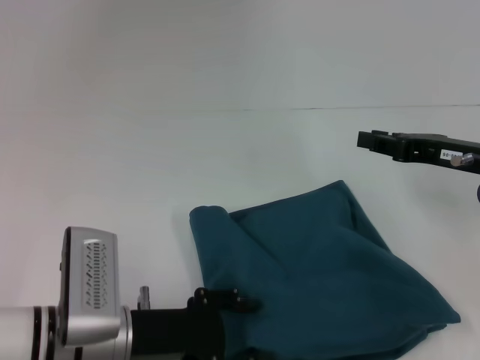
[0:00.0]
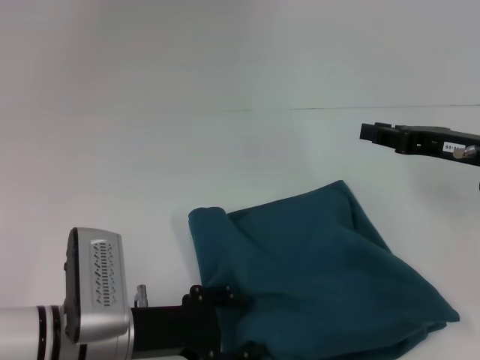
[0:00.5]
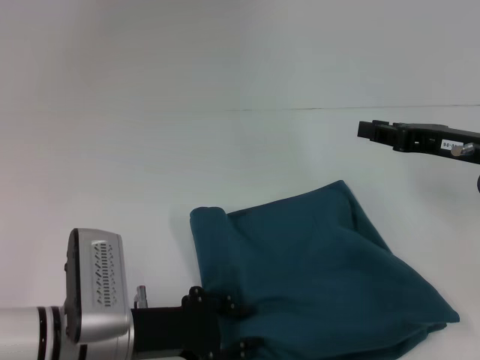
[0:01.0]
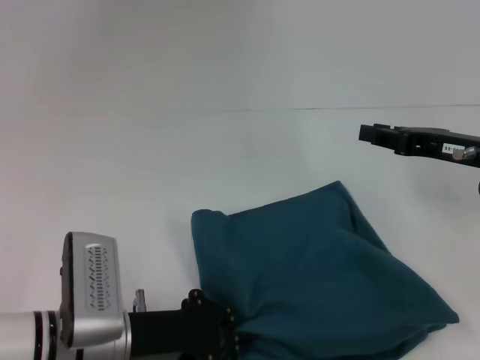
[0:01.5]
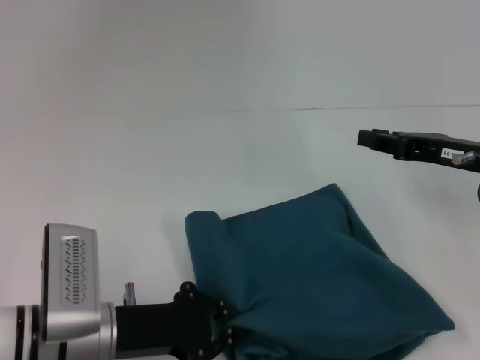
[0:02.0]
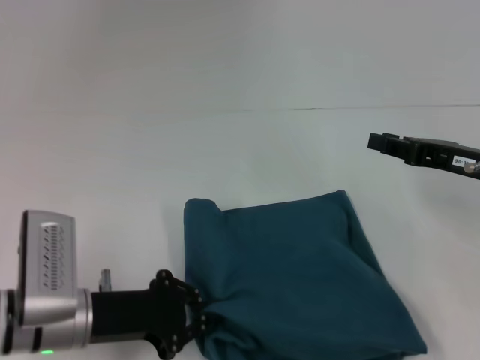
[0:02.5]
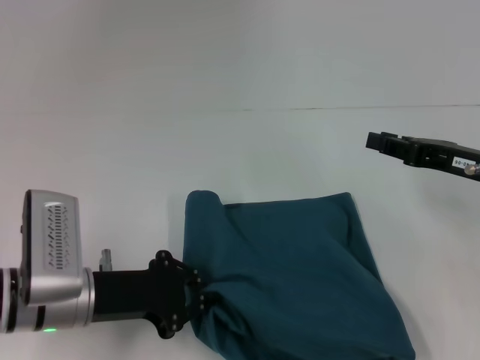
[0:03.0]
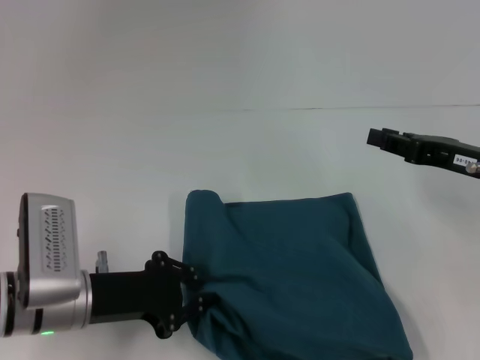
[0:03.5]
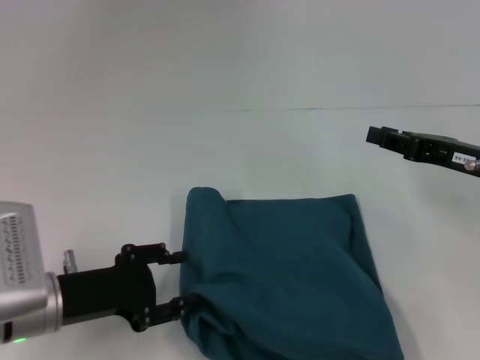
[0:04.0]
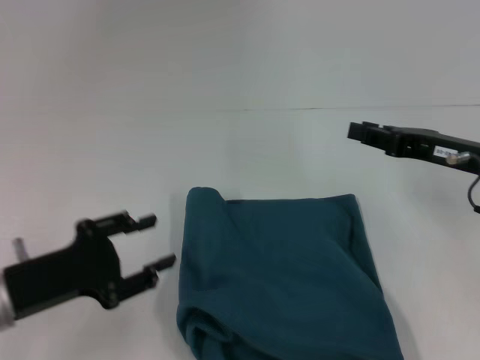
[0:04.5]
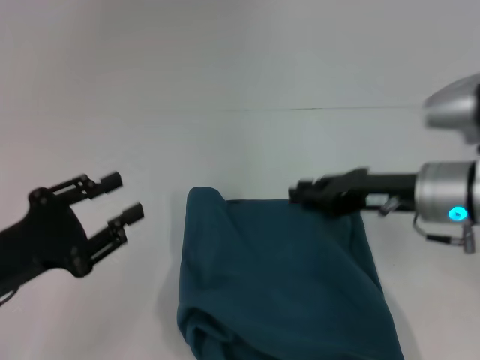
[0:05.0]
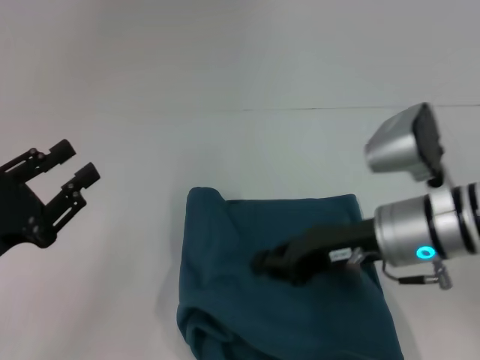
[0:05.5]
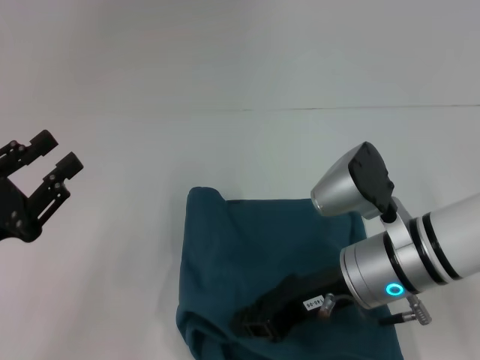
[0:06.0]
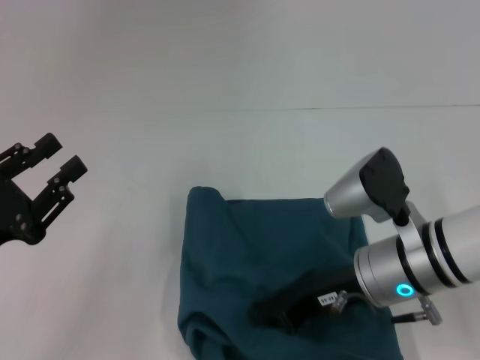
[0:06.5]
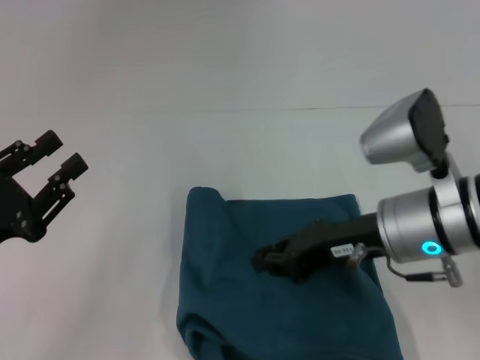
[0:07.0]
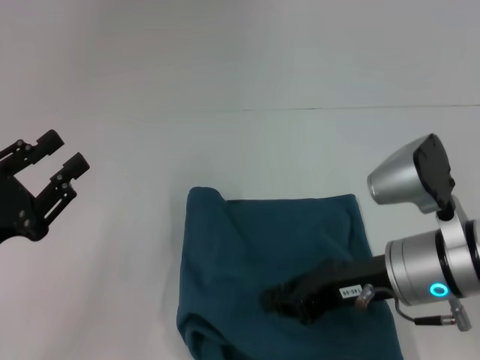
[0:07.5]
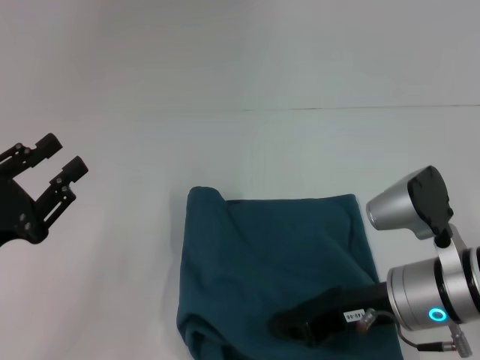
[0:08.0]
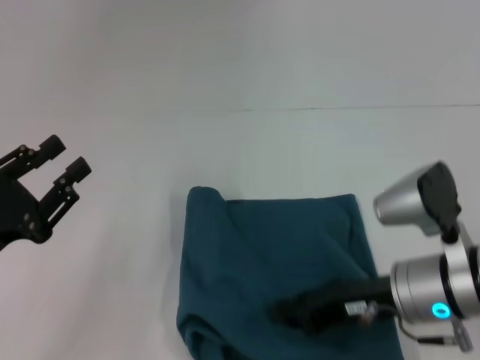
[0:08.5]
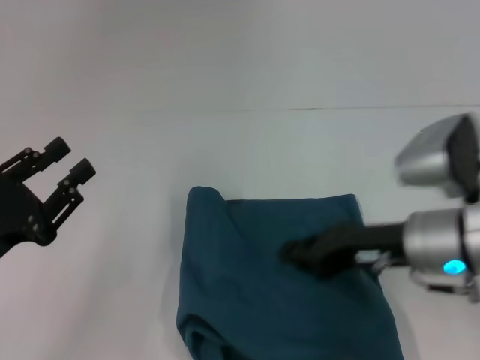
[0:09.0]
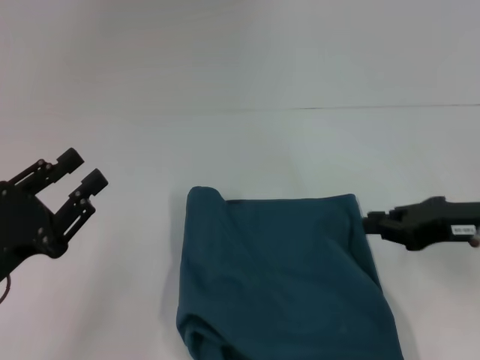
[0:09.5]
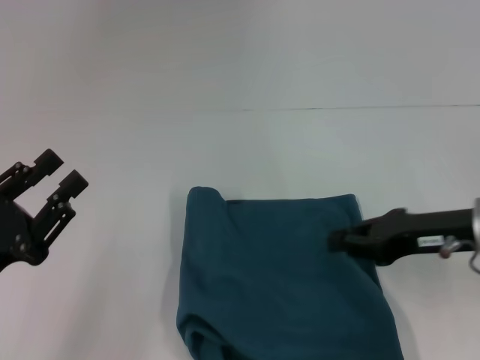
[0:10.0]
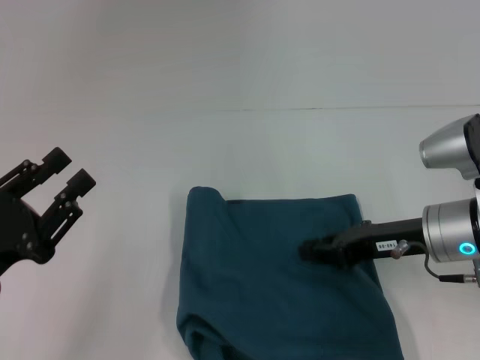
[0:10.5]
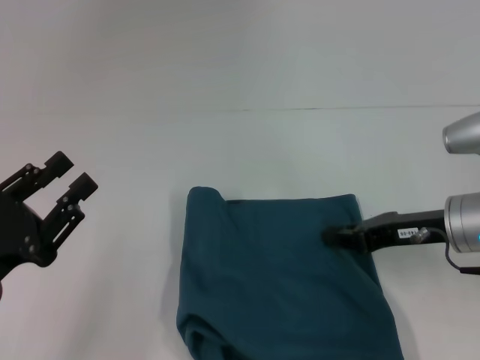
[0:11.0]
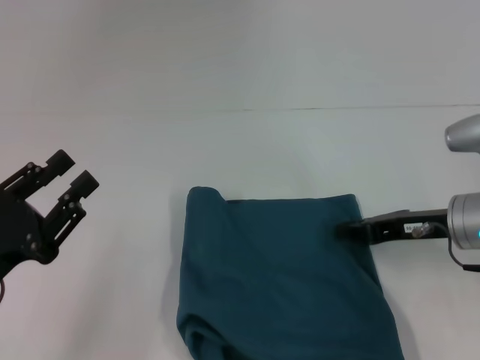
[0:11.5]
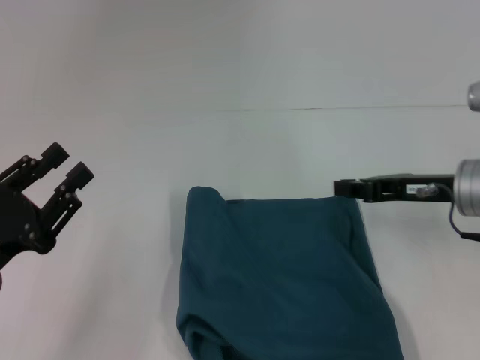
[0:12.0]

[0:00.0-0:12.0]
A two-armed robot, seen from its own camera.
0:00.0 to 0:02.0: The left gripper closes up.
0:02.0 to 0:04.0: The left gripper ends up about 5 cm from where it was.
0:04.0 to 0:06.0: The left gripper moves to the left, some 5 cm. The right gripper is displaced to the left by approximately 15 cm.
0:06.0 to 0:08.0: There are only small adjustments of the grippers.
0:08.0 to 0:10.0: The right gripper shifts about 10 cm to the right.

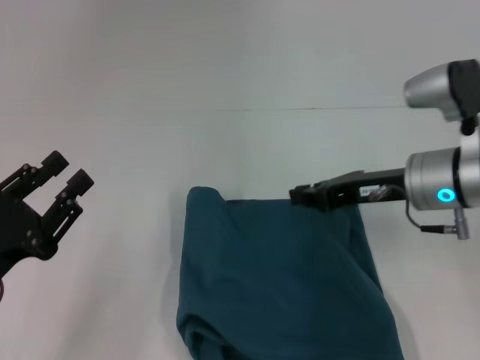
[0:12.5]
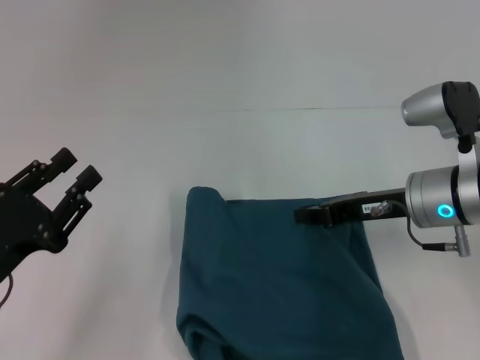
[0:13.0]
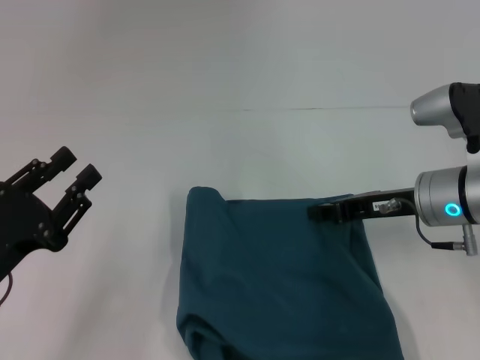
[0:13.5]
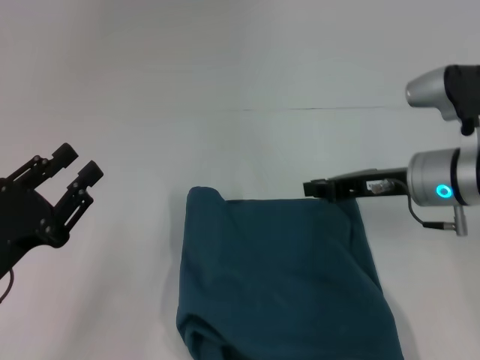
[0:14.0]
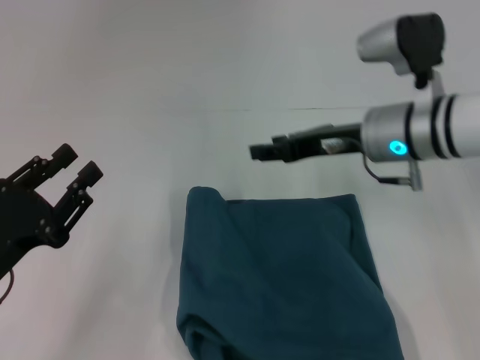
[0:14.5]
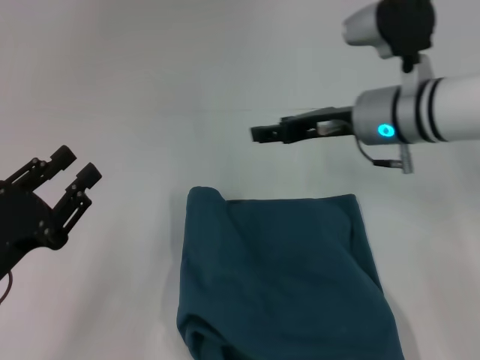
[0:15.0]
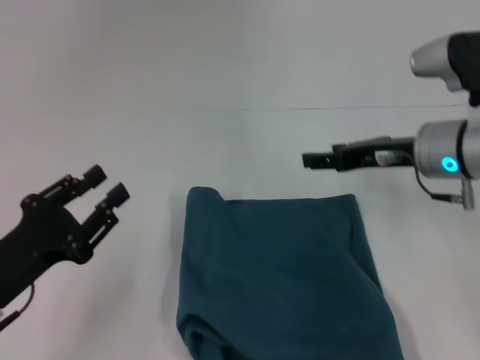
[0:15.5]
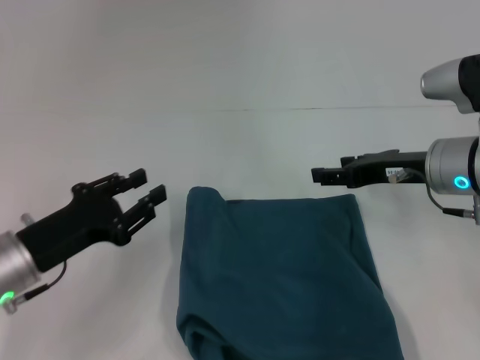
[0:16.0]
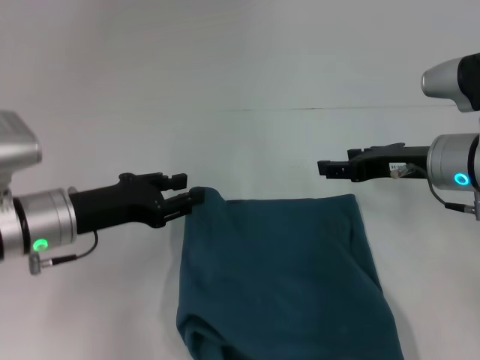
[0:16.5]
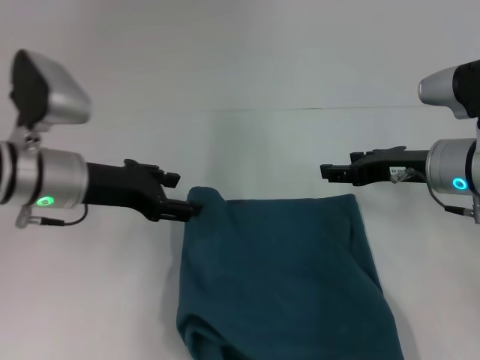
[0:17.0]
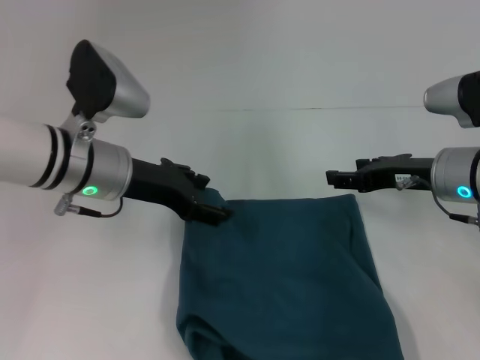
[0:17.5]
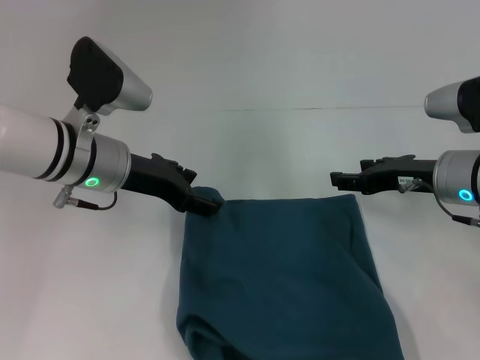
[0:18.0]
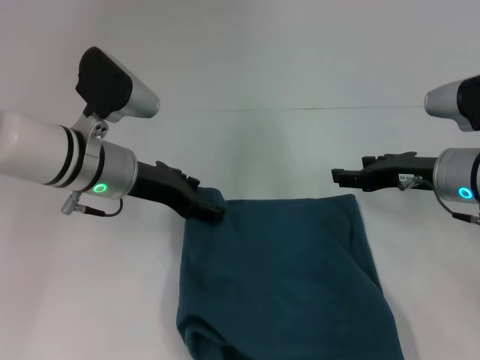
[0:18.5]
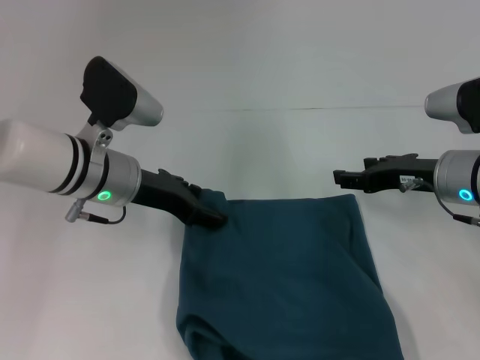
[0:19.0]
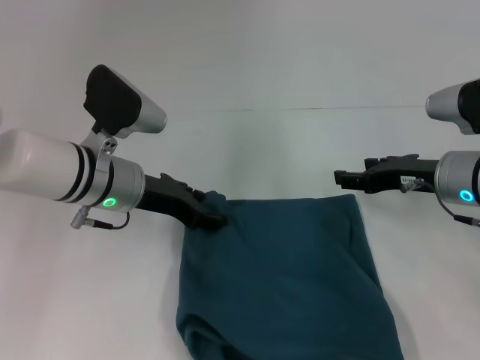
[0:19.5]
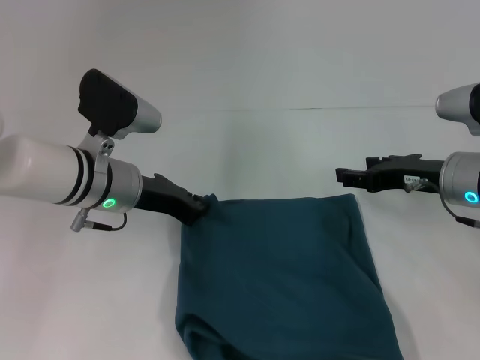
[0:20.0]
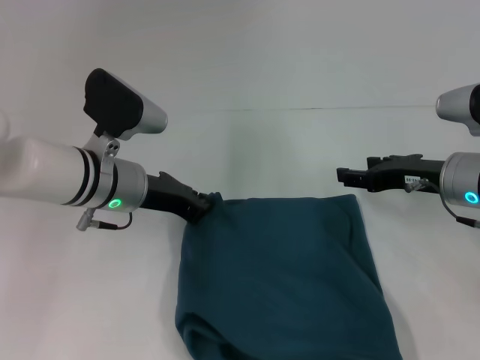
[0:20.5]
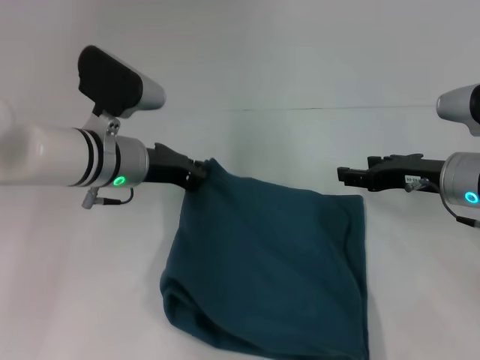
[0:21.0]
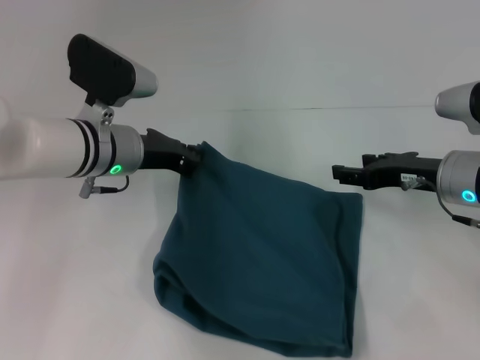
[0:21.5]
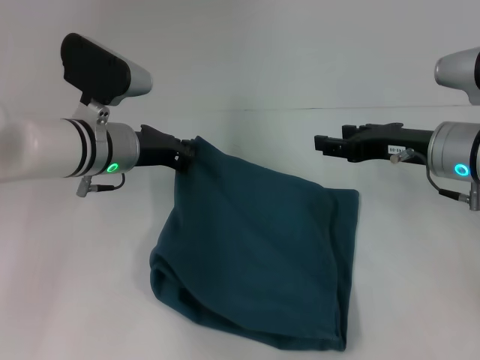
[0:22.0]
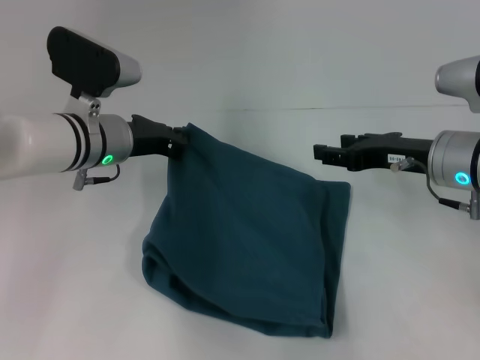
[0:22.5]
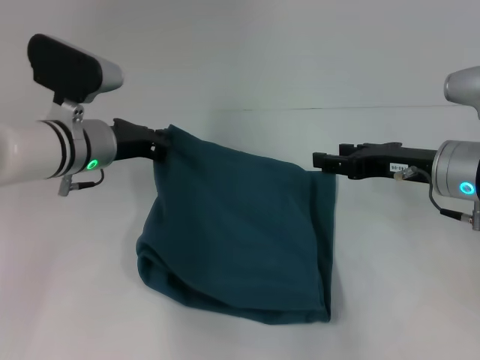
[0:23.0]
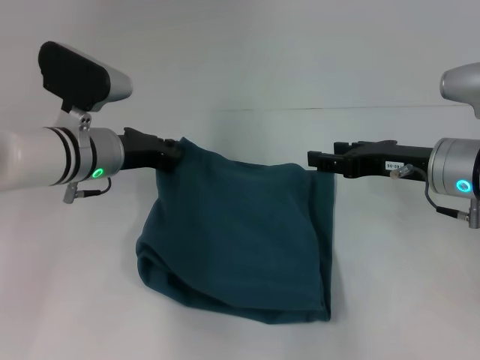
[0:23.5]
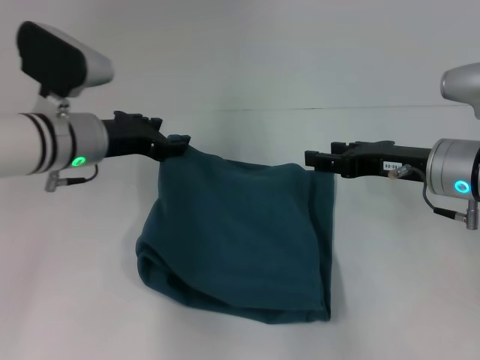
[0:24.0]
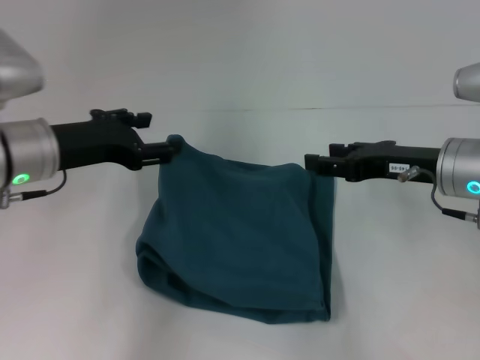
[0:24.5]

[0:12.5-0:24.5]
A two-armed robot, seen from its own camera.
0:12.5 to 0:14.5: The right gripper changes place by approximately 5 cm, and opens its fingers.
0:14.5 to 0:16.5: The right gripper goes about 5 cm to the right. Meanwhile the left gripper moves forward and to the right, about 10 cm.
0:16.5 to 0:18.5: The left gripper shifts about 10 cm forward and to the right, and opens its fingers.
0:18.5 to 0:20.5: The left gripper closes its fingers.
0:22.5 to 0:24.5: The left gripper is displaced backward and to the left by approximately 10 cm, and opens its fingers.

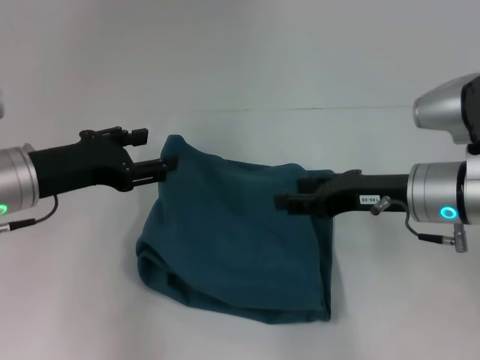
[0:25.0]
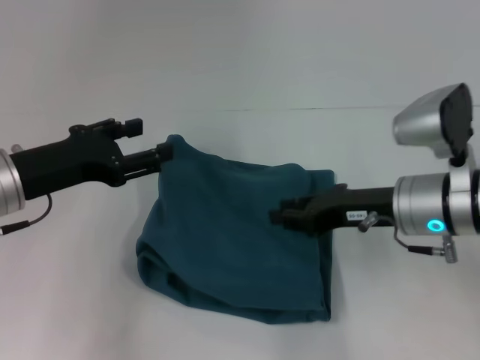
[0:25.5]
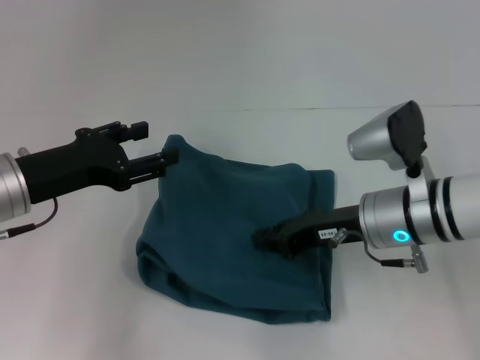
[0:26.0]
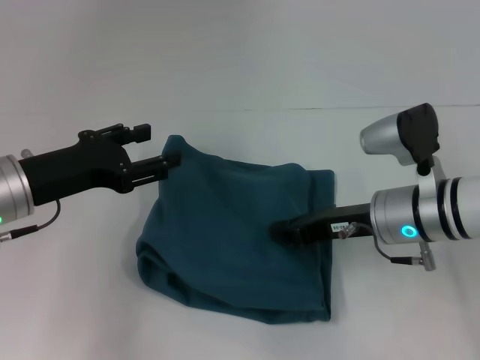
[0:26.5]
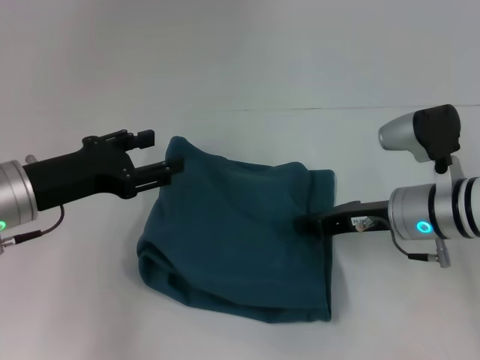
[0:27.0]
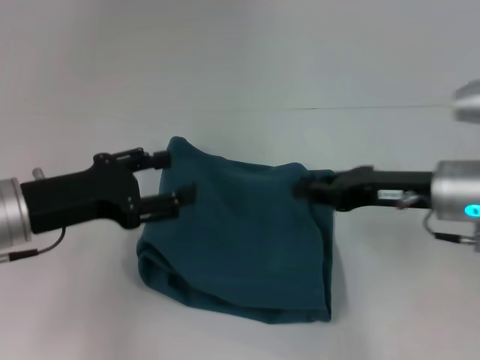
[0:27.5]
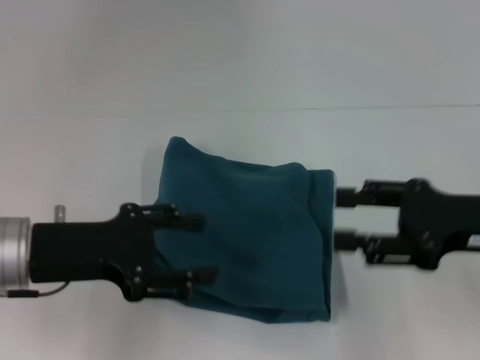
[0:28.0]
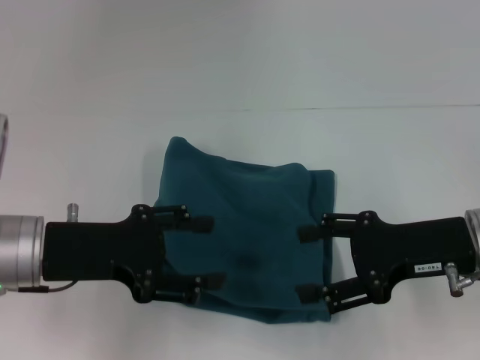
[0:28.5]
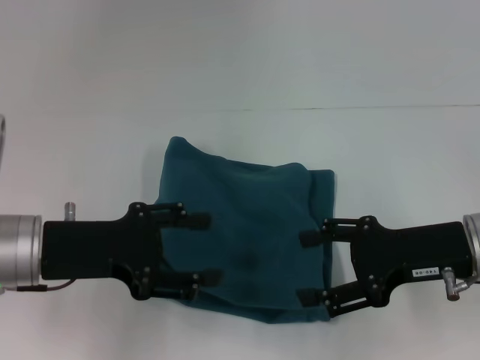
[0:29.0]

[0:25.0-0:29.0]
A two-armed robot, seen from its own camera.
0:25.0 to 0:27.0: The right gripper closes.
0:27.0 to 0:29.0: The right gripper shifts roughly 5 cm backward, and opens its fingers.
